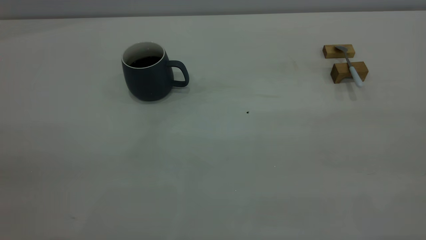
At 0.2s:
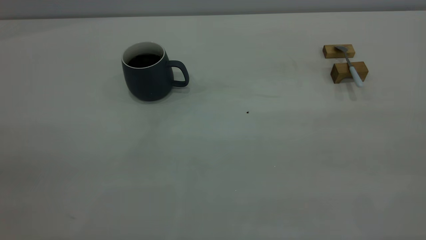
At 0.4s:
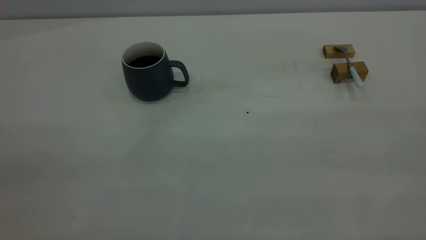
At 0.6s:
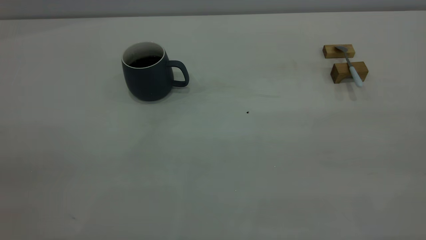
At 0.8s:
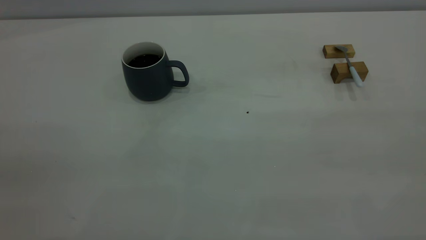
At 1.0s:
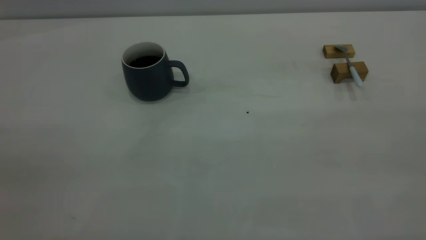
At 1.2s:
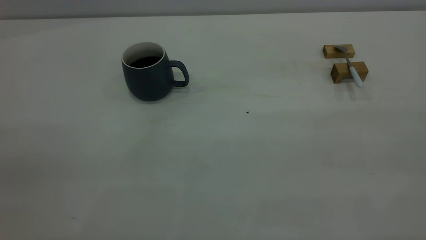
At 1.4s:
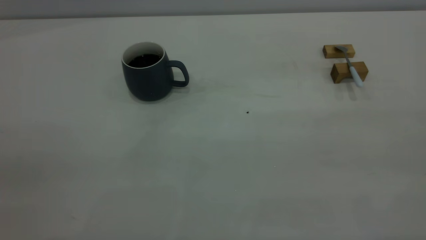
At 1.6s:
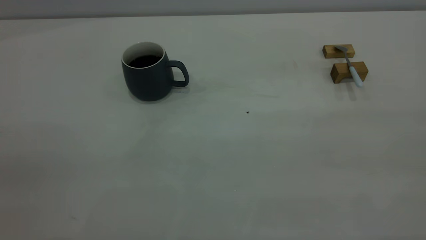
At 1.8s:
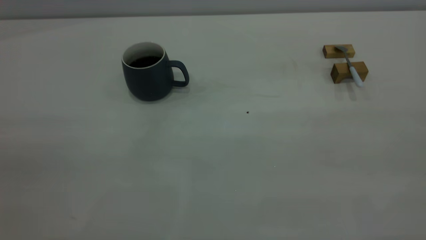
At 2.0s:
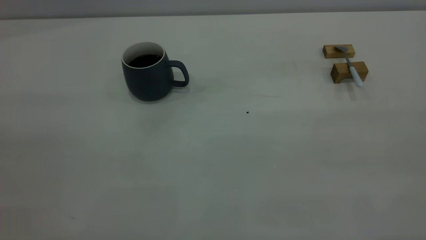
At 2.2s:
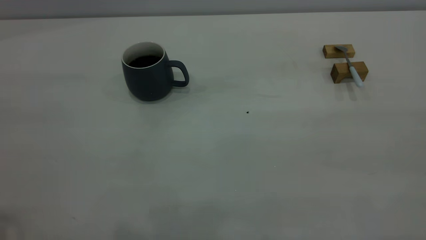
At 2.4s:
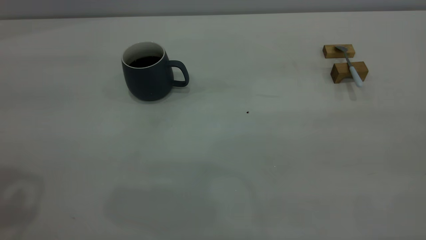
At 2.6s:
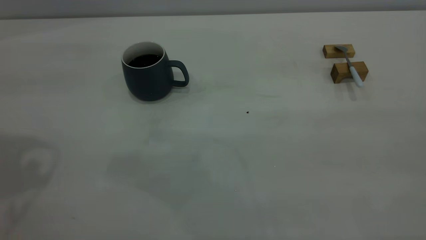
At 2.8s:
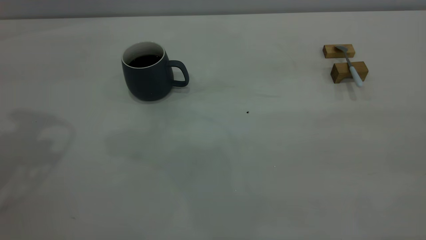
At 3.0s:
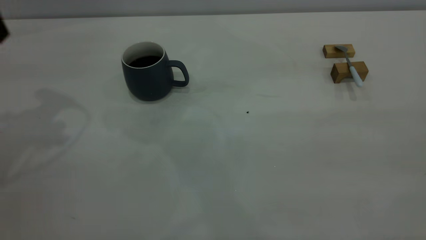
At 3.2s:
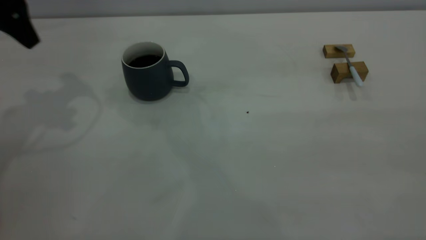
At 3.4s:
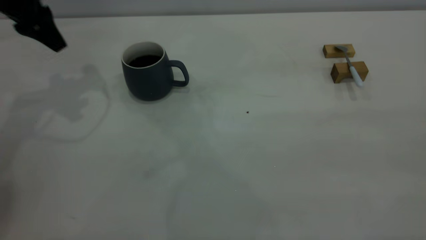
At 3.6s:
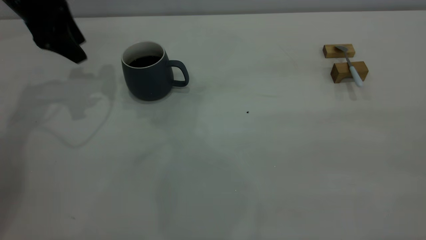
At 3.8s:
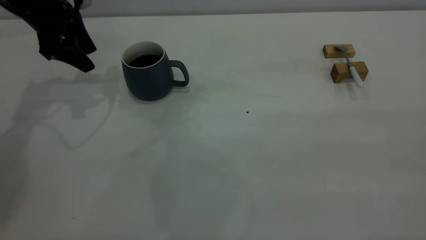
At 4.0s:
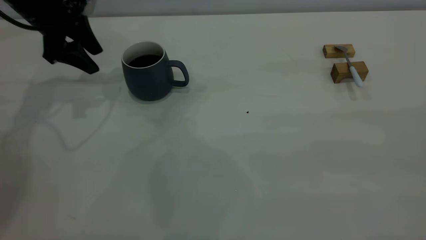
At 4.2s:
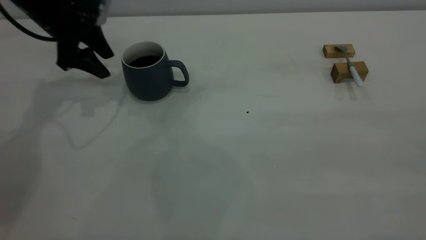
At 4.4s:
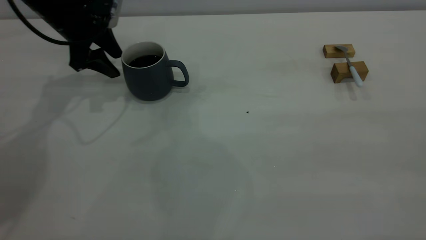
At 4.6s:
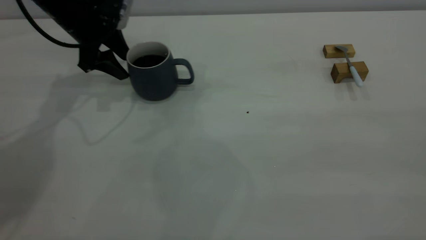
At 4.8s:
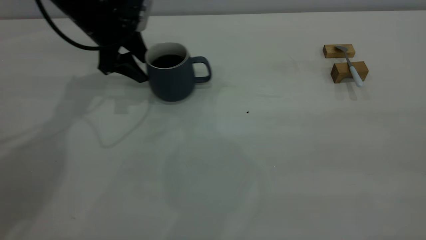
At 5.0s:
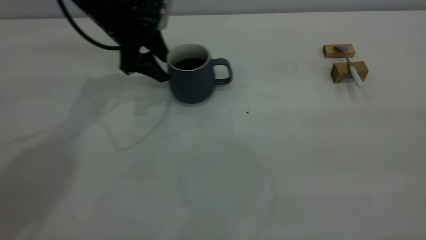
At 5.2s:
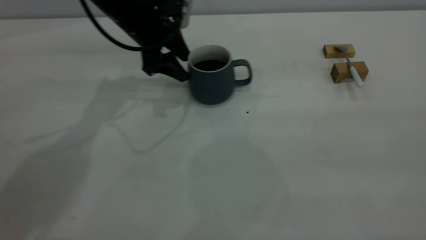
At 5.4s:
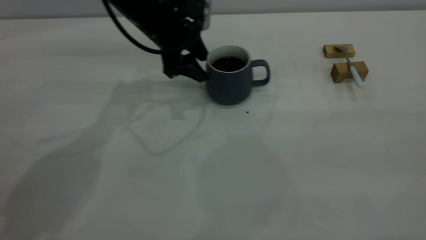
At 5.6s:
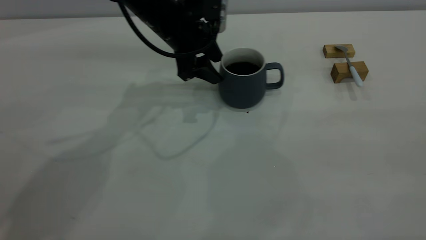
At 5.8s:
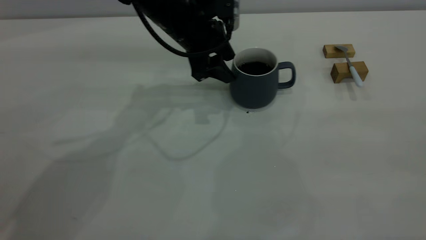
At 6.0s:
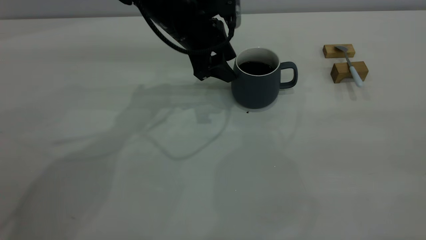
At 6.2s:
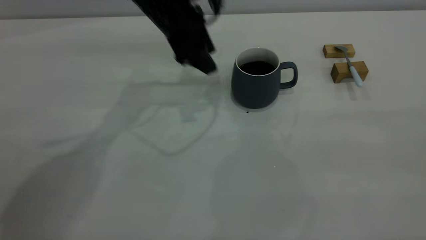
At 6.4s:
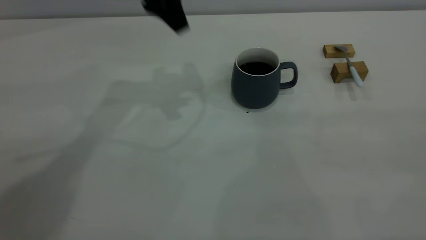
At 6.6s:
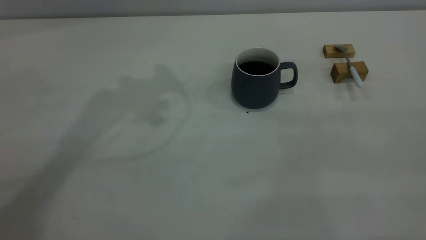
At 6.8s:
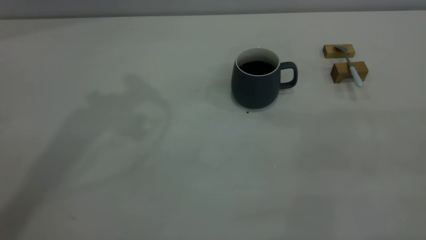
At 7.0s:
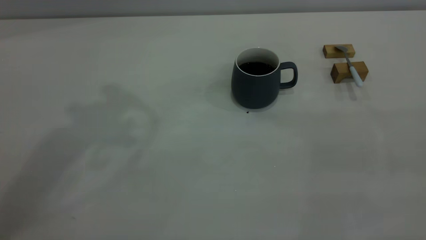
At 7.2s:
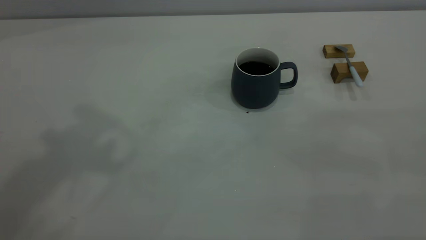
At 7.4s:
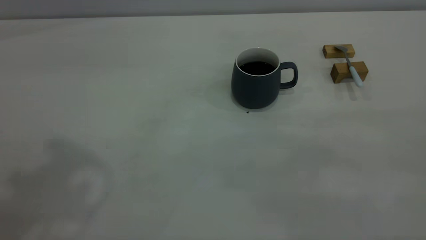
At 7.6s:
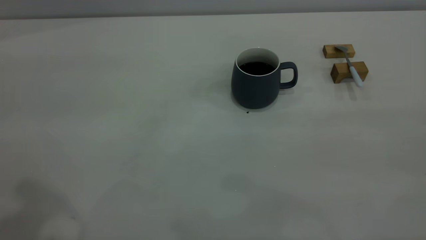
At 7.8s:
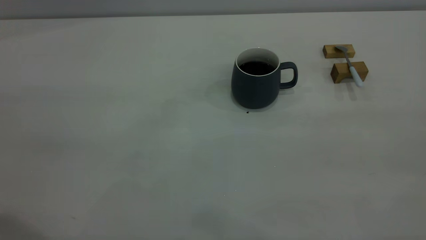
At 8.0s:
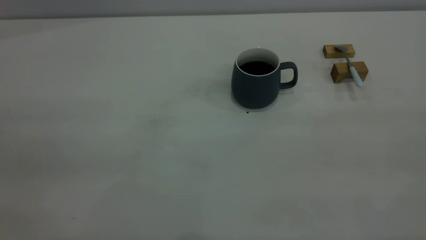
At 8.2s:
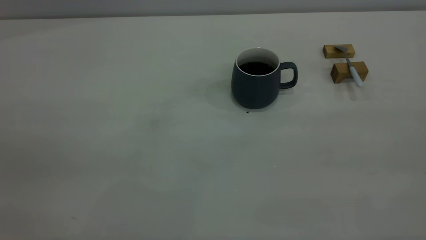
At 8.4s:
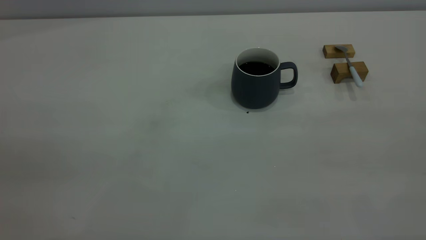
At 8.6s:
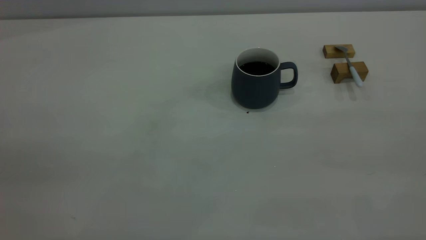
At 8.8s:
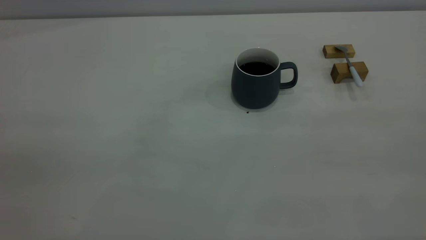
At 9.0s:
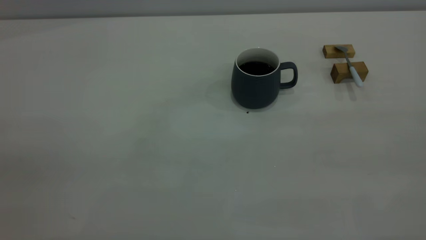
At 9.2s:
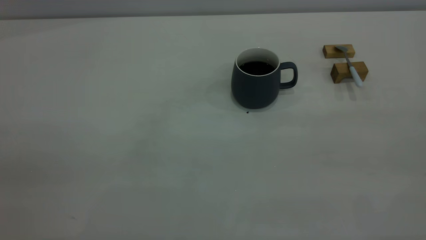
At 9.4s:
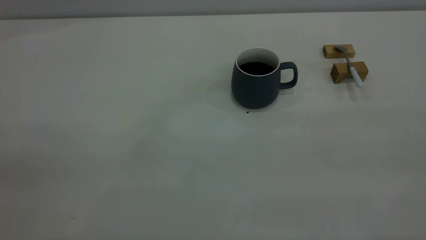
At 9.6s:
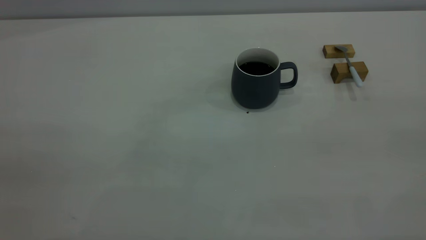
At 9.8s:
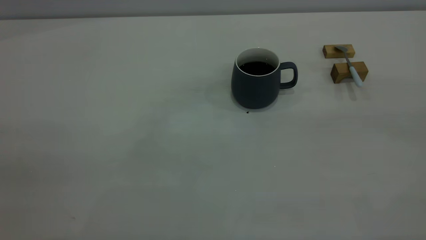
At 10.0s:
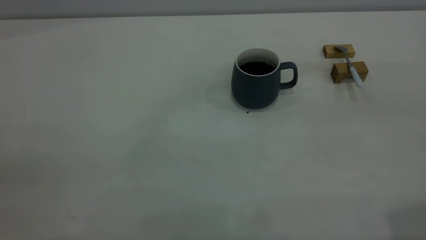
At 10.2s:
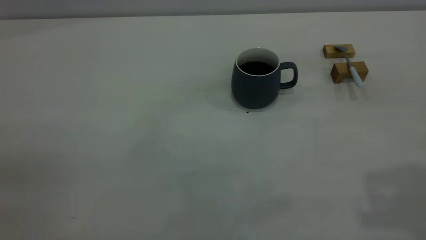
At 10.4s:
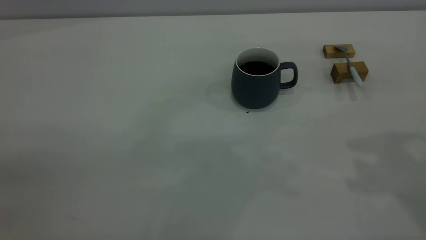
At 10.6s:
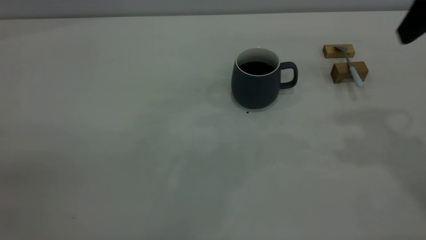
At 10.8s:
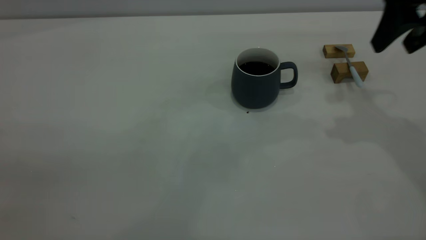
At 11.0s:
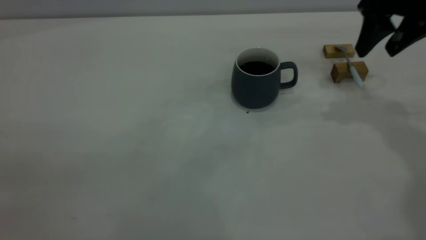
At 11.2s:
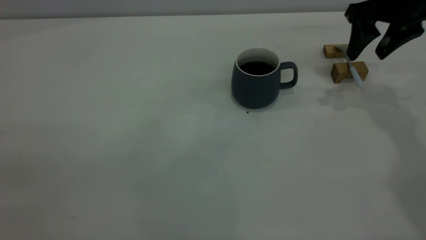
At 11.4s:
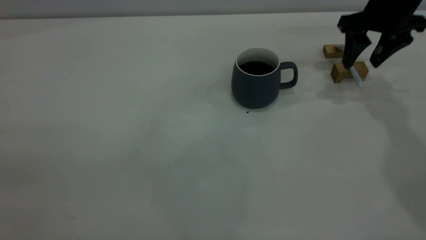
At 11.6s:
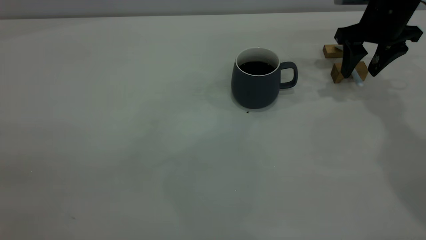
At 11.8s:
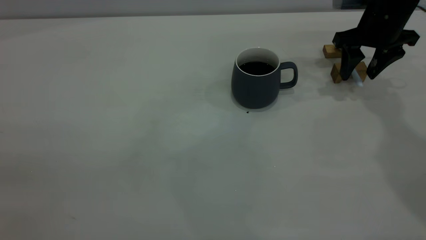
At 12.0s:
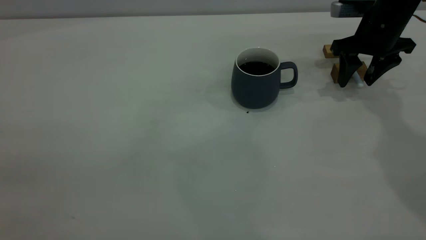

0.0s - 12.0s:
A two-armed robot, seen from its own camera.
Step, 0.0s - 6.2s: Move the cup with coffee to the center of view.
0.0s - 1.6s: Neither gripper changes place.
3.0s - 4.4s: The left gripper moves downward and forward, roughly 20 cm.
4.4s - 6.0s: The left gripper travels to the right by about 20 cm.
6.0s - 7.6s: The left gripper shifts roughly 40 cm backward, upward and to the left.
10.4s - 12.0s: The right gripper shifts approximately 30 cm forward and downward.

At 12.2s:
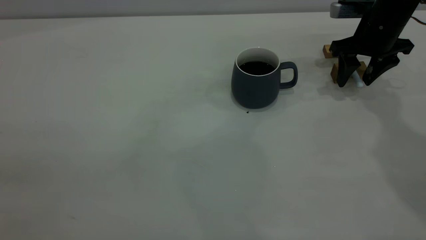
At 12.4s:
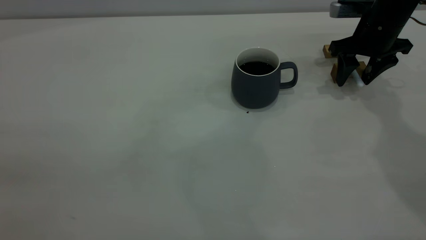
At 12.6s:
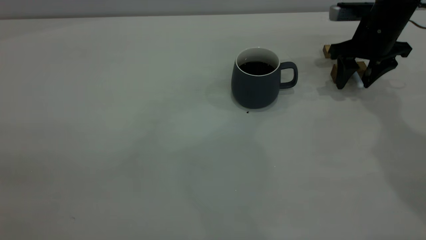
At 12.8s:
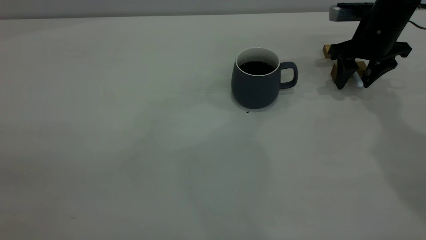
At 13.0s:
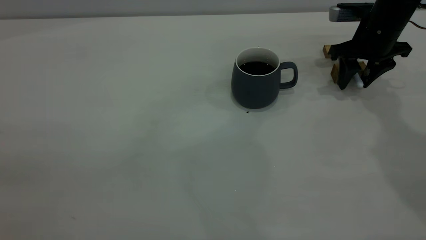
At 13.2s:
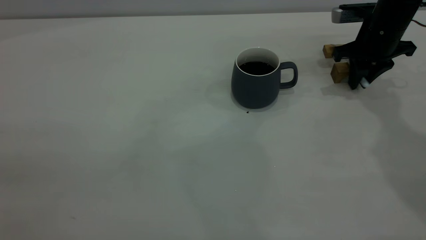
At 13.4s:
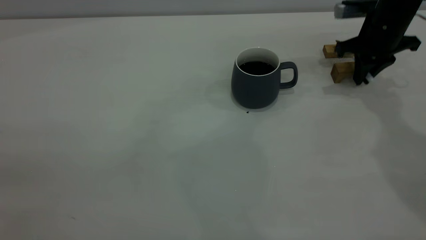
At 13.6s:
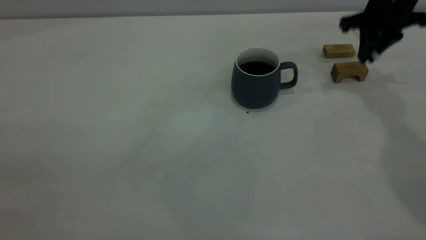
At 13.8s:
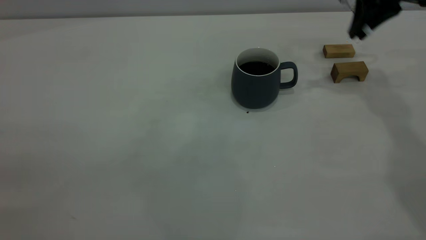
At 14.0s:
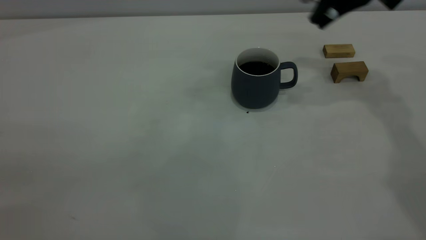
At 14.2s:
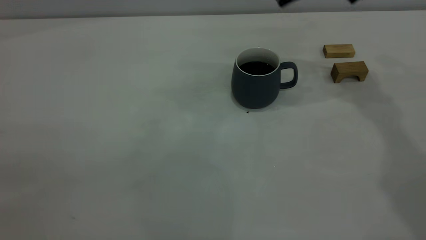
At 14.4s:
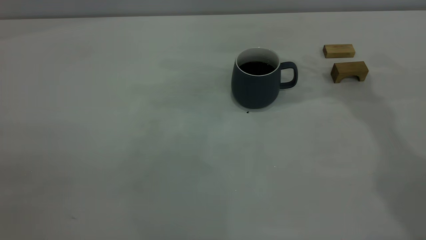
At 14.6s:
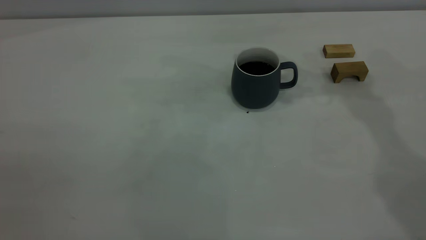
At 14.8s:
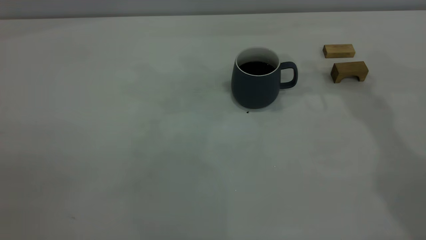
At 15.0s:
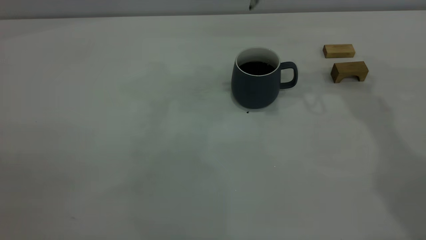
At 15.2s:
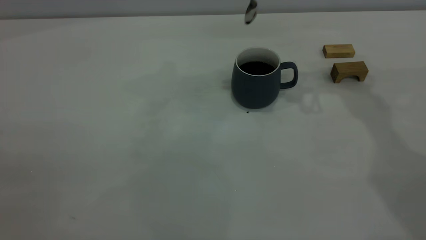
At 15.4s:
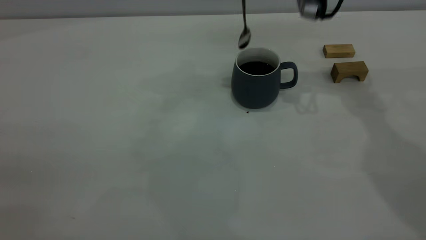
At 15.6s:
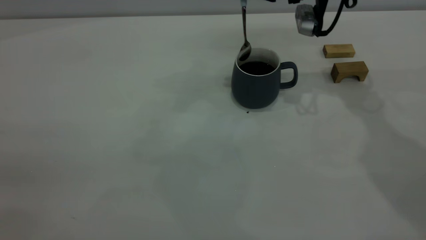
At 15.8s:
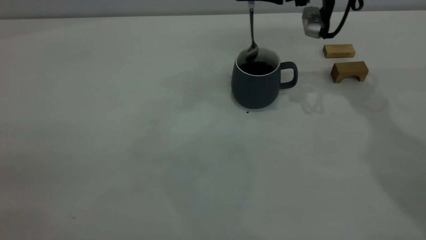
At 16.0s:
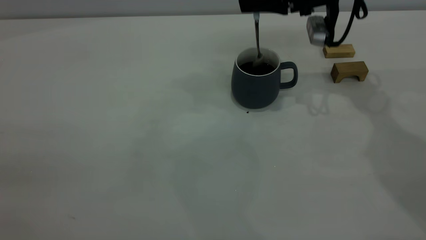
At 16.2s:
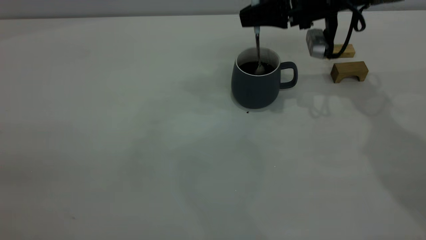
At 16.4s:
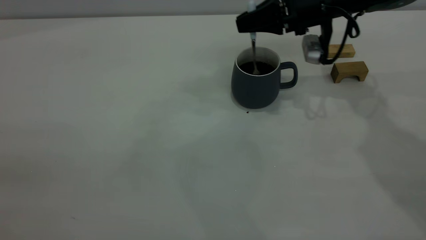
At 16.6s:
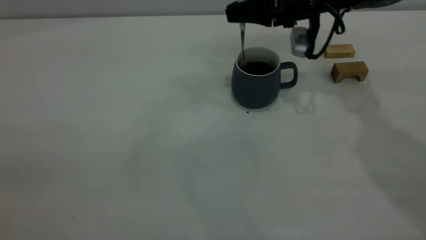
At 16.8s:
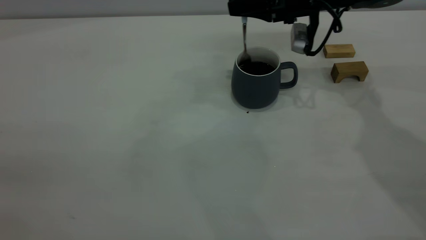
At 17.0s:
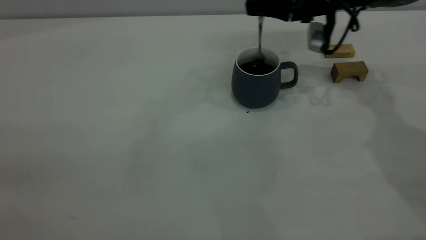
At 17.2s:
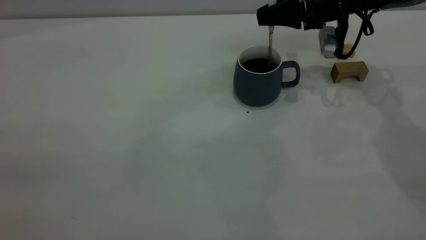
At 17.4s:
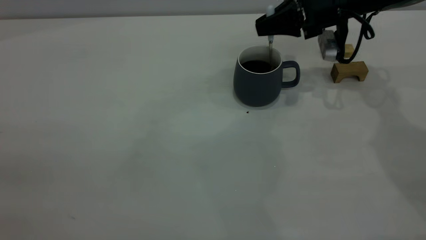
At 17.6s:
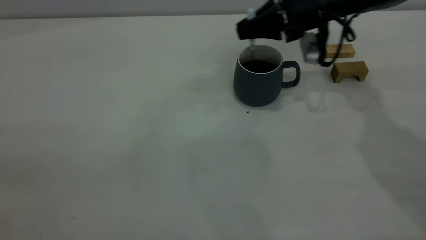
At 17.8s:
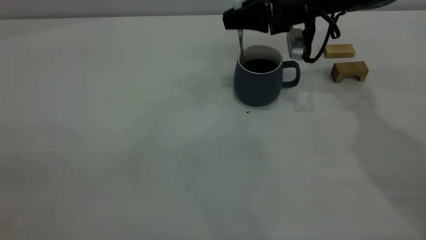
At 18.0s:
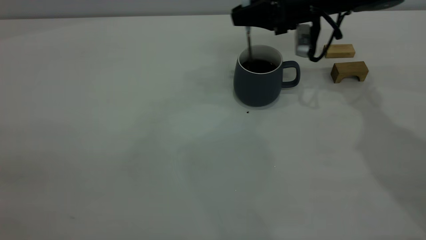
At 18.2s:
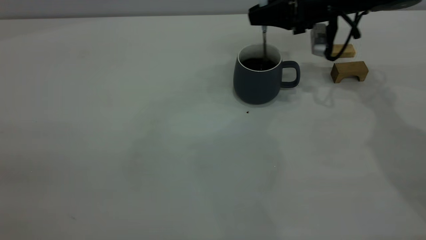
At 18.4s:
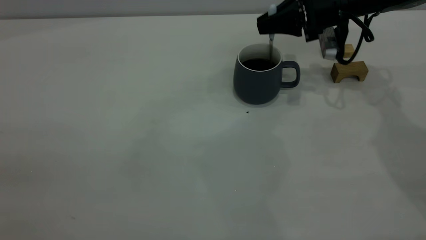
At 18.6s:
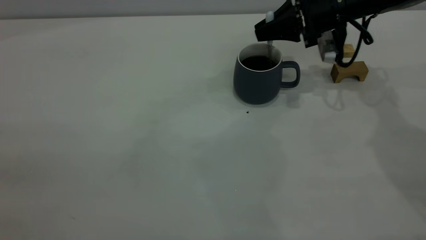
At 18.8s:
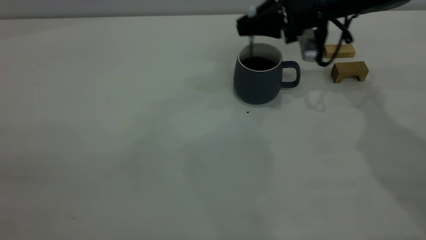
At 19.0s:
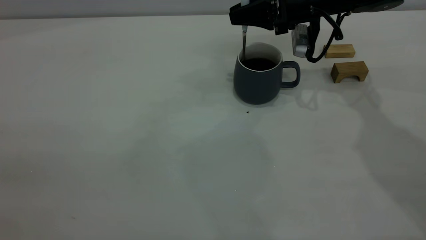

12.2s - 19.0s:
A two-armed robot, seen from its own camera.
12.2s - 13.6s: The right gripper moves upward, about 5 cm, and closes.
13.6s - 15.0s: The right gripper is displaced to the left and upward by about 15 cm.
15.0s - 16.2s: The right gripper moves downward, approximately 15 cm.
16.2s - 19.0s: There are only small adjustments of the grippers.
